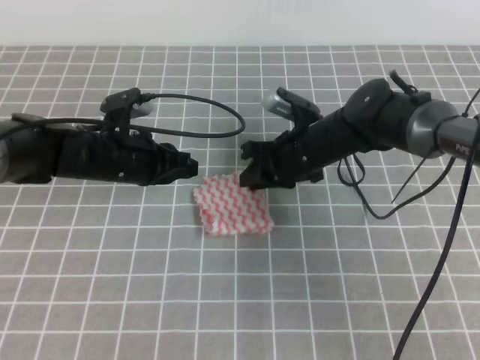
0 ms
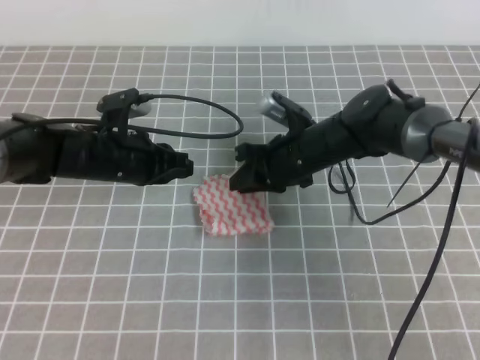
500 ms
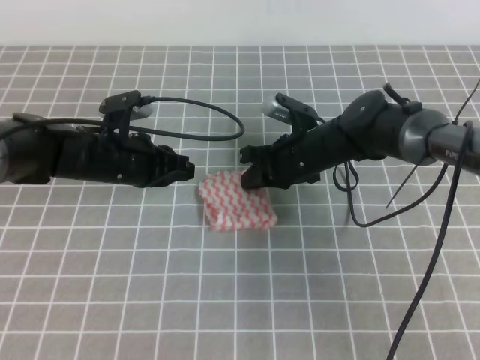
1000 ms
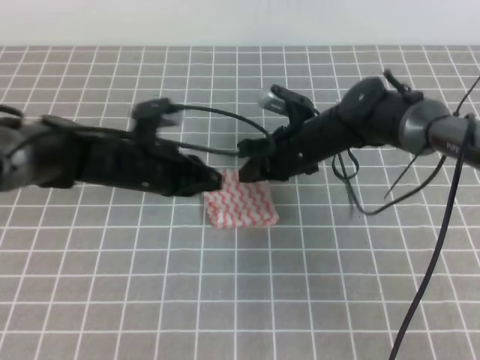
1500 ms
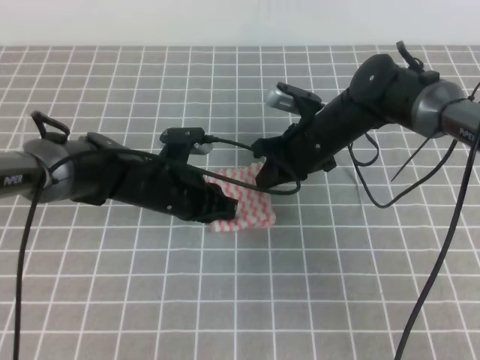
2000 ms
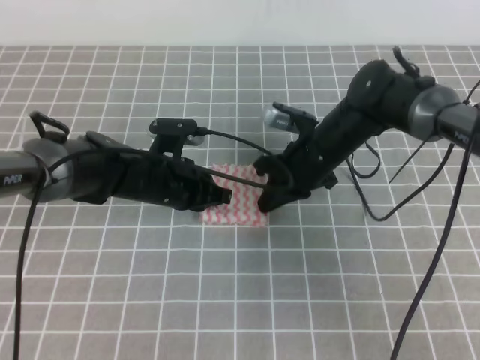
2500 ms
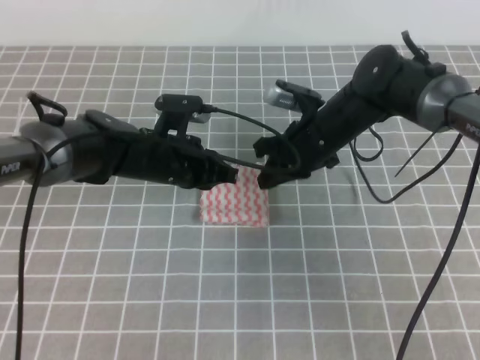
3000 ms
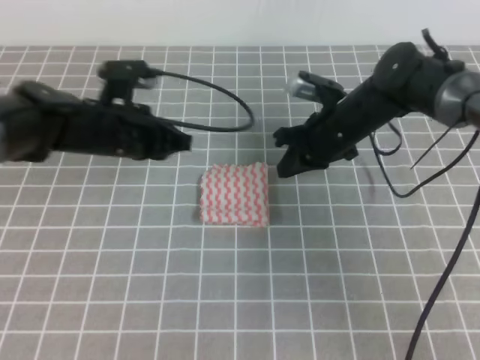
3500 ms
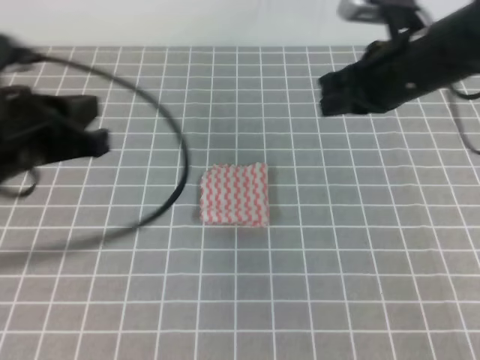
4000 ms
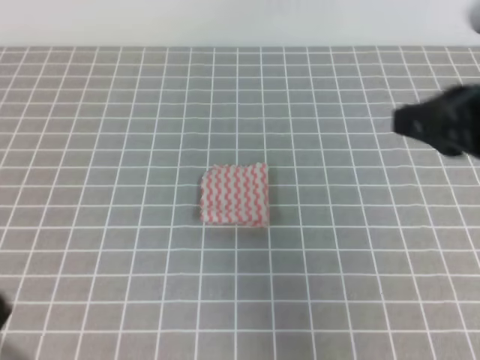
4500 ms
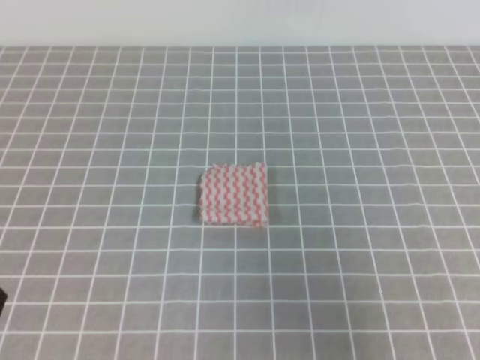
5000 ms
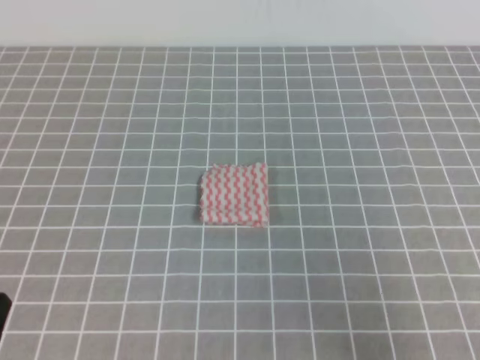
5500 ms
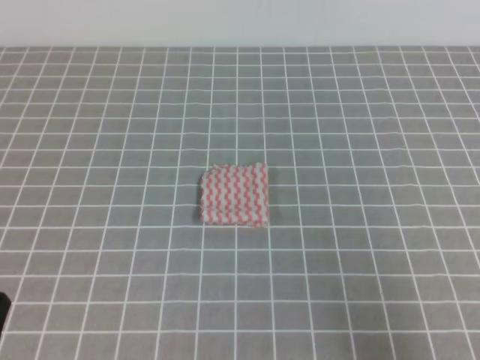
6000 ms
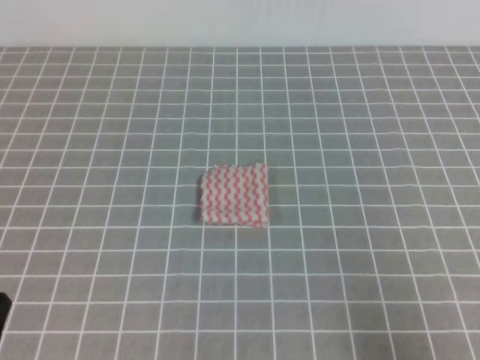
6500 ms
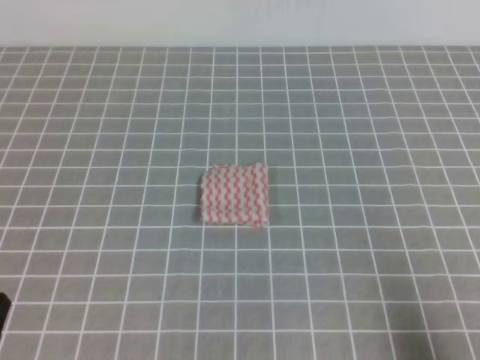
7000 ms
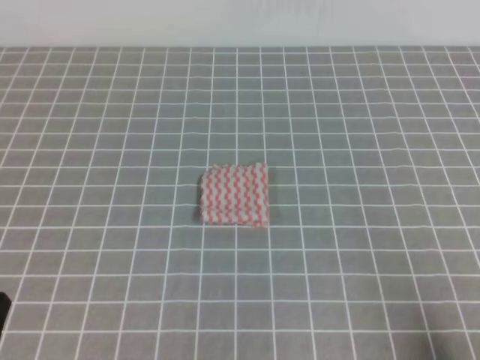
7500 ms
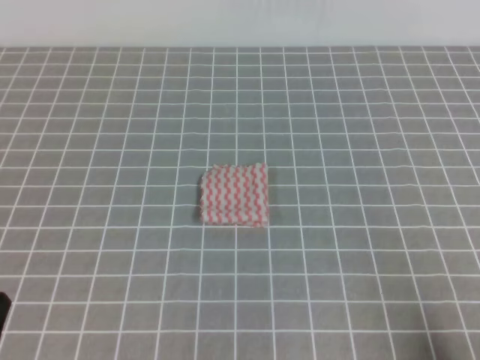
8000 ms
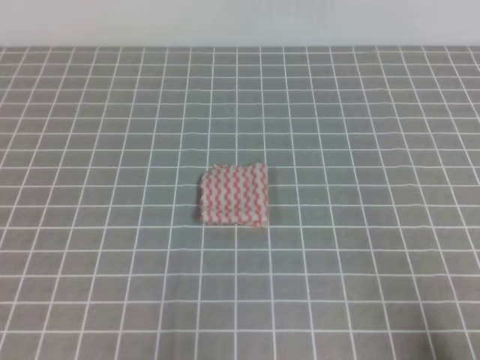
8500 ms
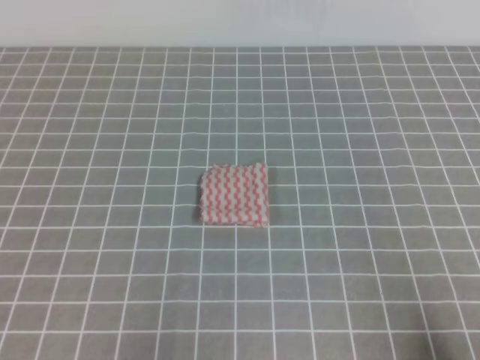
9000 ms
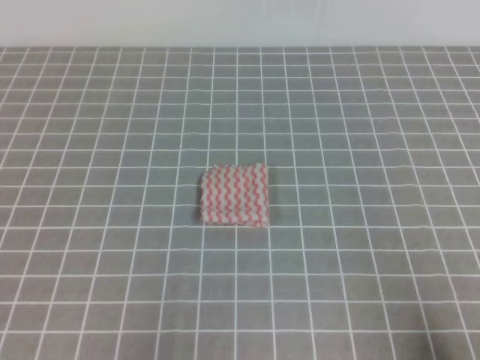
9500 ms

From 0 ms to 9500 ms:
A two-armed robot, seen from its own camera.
Step, from 0 ms to 9500 ms: Fold the towel.
From 0 ms to 2000 ms: The right gripper closes its fingers, while the left gripper shifts about 5 cm to the right.
From 2000 ms to 4000 ms: The right gripper is displaced upward, to the right and backward by about 15 cm, while the left gripper is displaced upward, backward and to the left by roughly 25 cm.
From 4000 ms to 5500 ms: The right gripper shifts approximately 30 cm backward. Meanwhile the left gripper shifts roughly 25 cm backward and downward.
From 5500 ms to 7500 ms: The right gripper goes about 10 cm downward.
